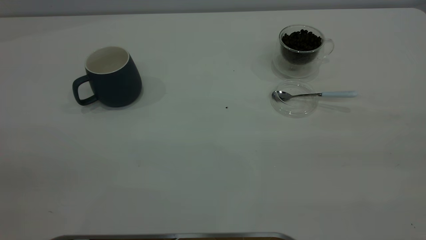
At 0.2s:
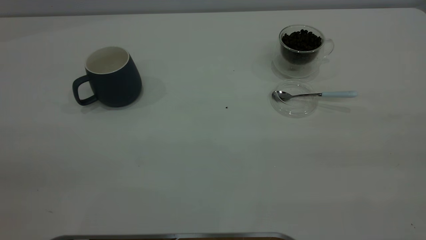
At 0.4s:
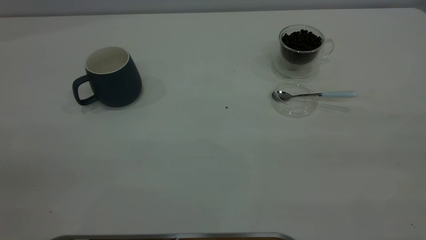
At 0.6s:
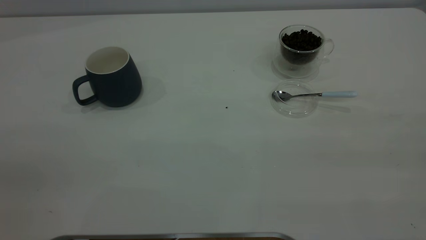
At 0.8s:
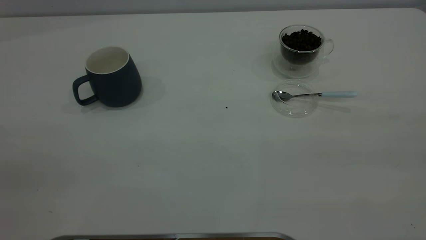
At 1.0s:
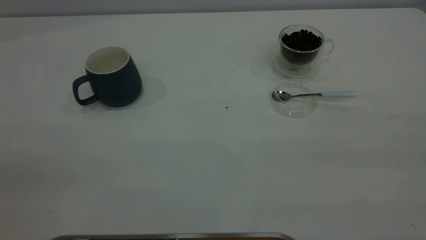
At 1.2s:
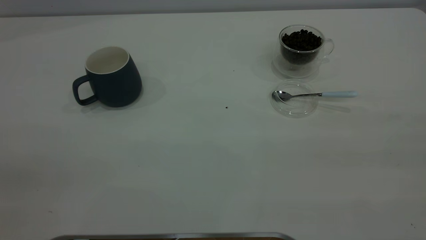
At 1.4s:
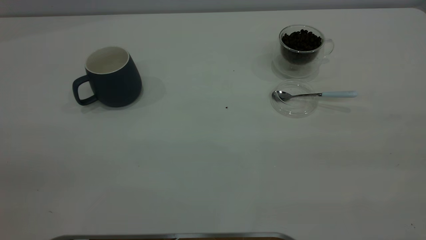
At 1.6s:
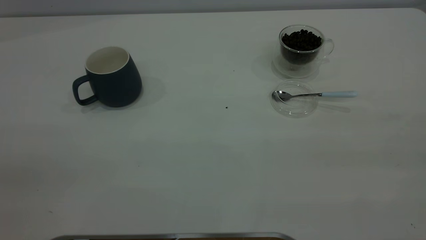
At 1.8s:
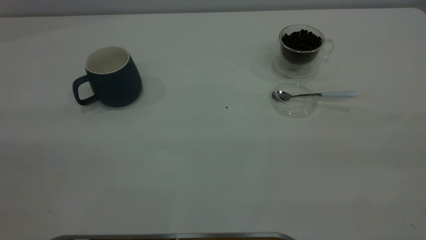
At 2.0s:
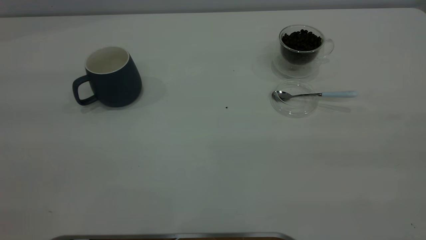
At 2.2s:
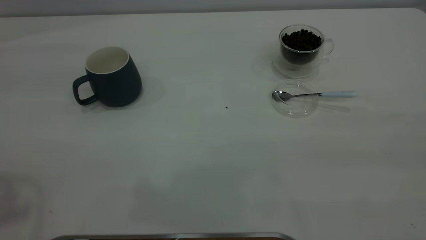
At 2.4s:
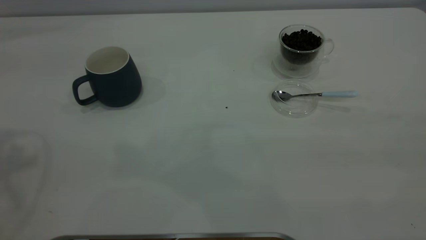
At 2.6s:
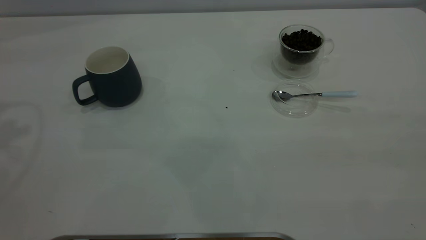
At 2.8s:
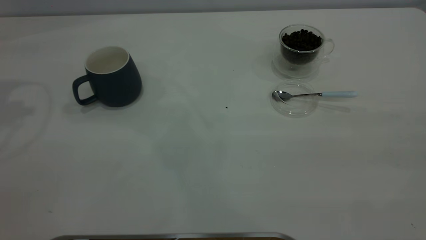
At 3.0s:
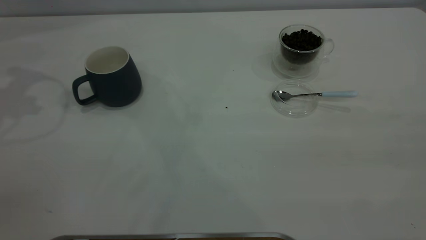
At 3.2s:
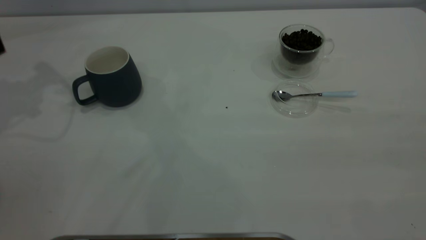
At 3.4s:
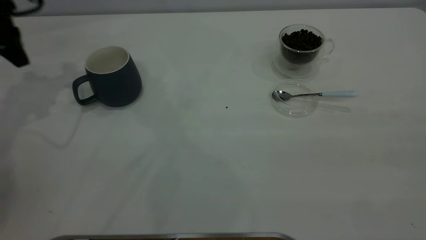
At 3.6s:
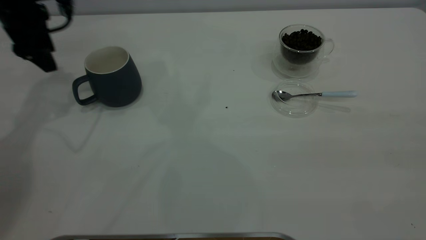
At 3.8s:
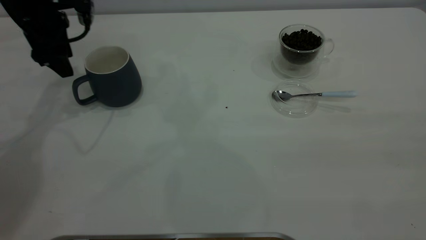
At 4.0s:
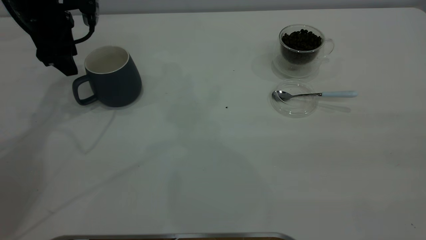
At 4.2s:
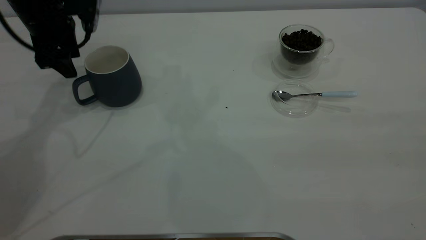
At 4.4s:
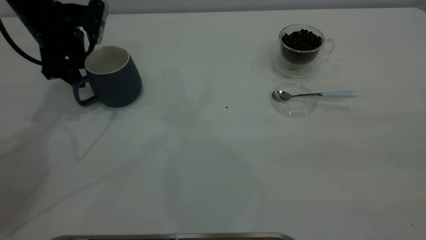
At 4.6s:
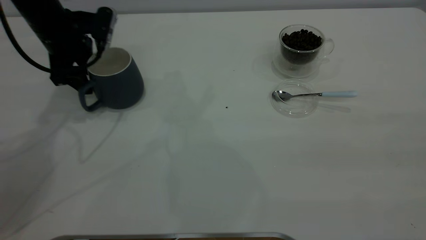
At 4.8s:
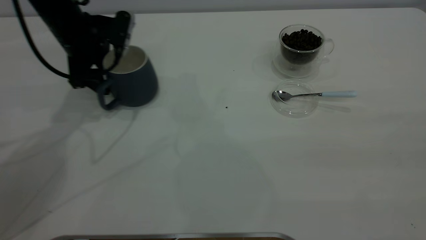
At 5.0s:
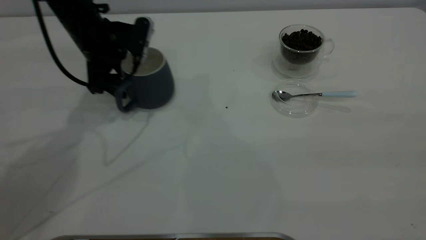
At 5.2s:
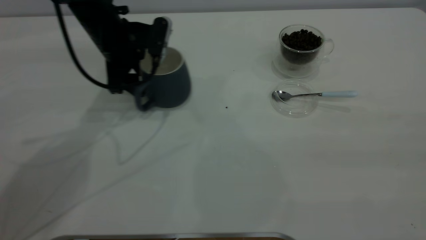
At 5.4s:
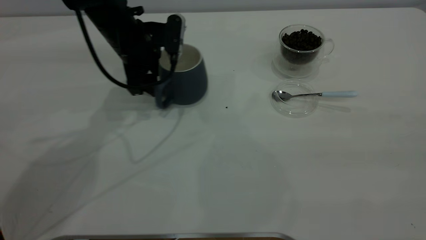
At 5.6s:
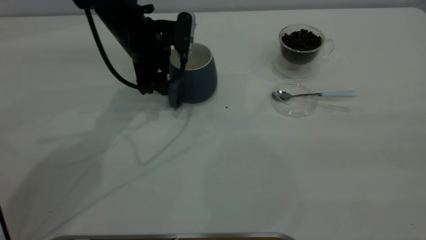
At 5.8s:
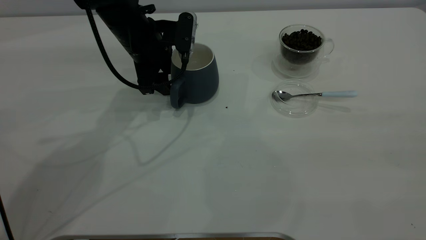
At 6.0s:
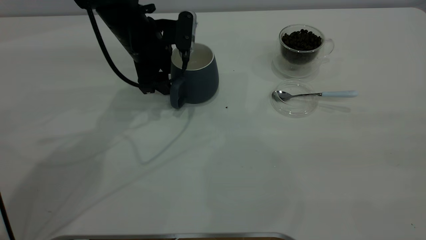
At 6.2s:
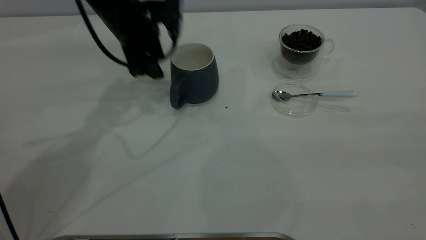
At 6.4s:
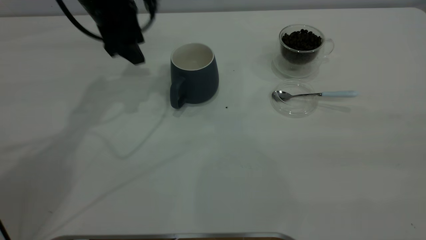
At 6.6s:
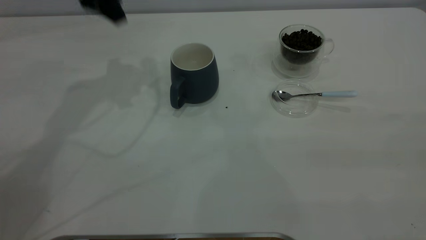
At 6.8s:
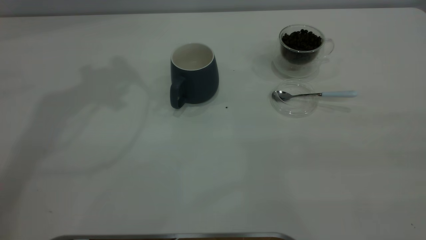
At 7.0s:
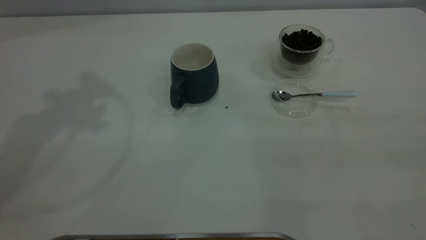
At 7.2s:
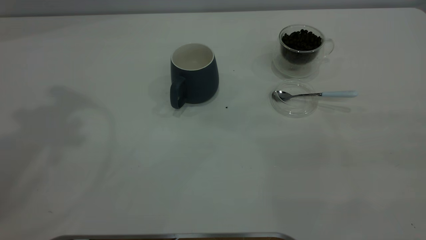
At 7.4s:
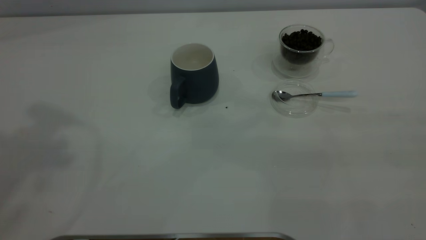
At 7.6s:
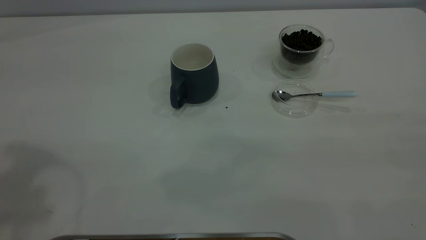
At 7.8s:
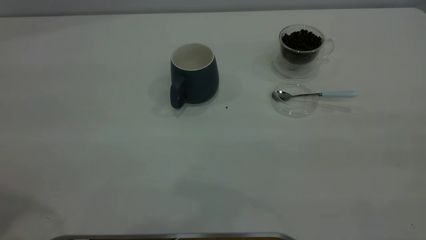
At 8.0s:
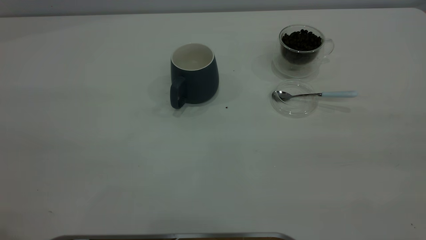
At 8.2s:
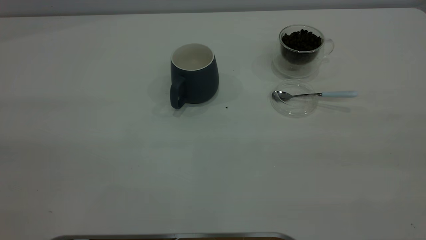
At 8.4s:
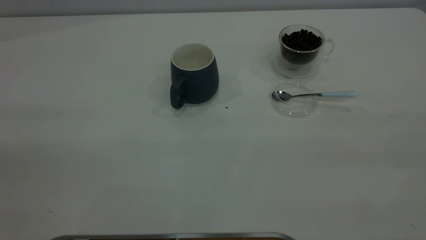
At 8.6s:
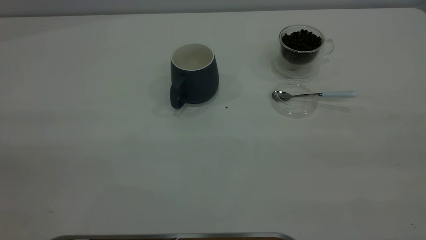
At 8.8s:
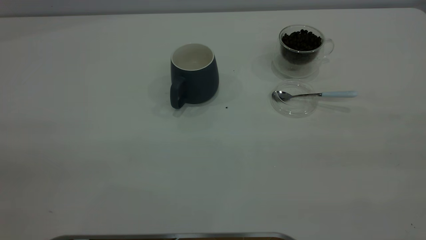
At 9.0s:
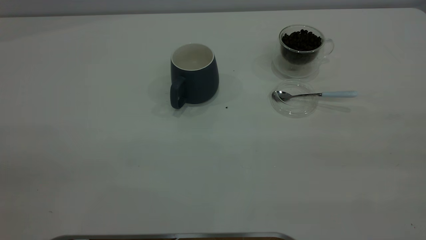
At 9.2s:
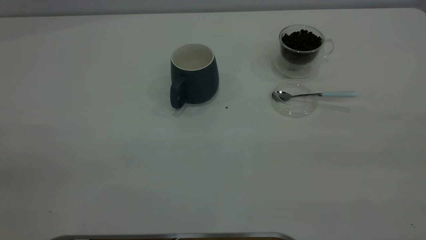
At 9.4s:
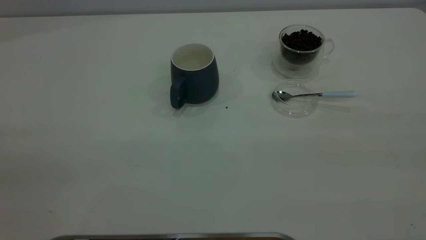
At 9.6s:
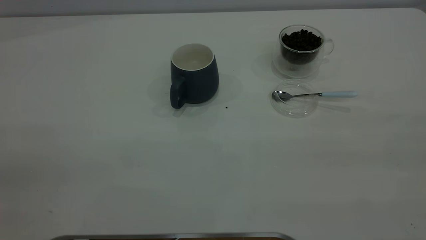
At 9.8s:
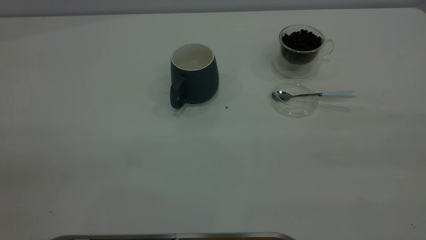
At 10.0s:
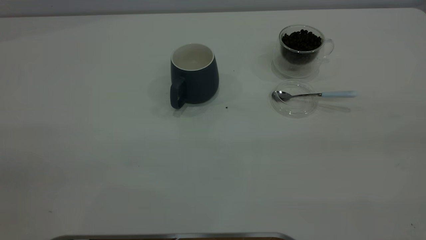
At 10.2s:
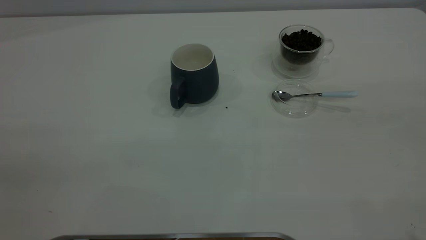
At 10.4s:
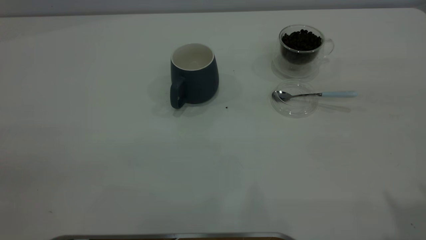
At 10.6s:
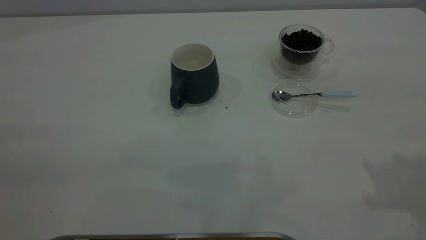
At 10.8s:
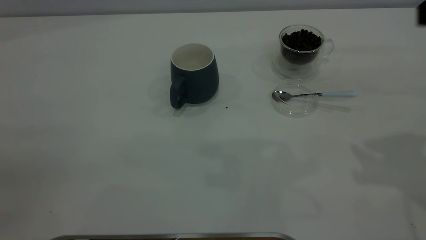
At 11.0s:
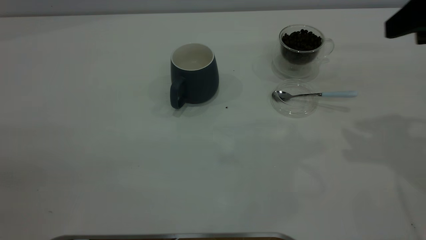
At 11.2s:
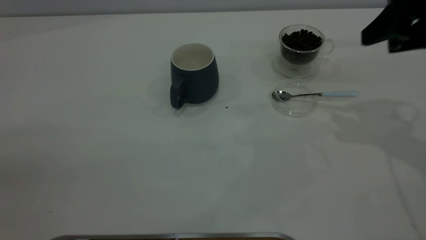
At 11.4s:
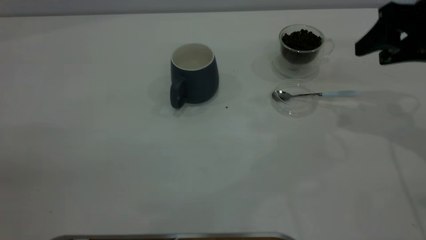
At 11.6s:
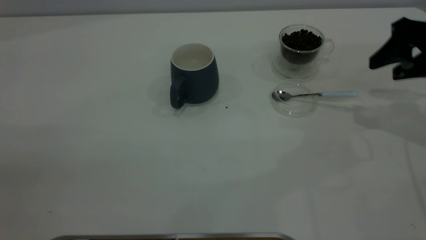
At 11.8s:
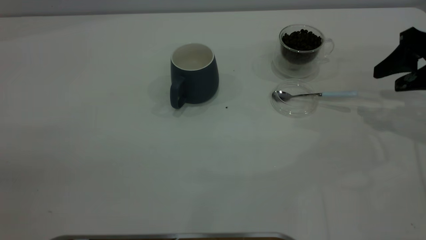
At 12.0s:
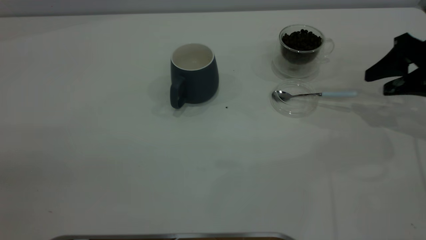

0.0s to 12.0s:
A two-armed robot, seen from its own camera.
Task of the whole recording: the left gripper place the grey cup in the center of the table, the right gripper take the blue spoon from the cup lid and scoop out the coffee beans from the coffee cup and put them into the grey cup, the right gripper put the spoon back into the cup lid.
Step, 0.0s to 6.2s: Move the cup to the center of view.
0.0s to 1.6s: Neither gripper changes place.
3.0s to 4.4s: The left gripper heads downward and to the right, covering approximately 15 cm.
4.4s to 6.0s: The left gripper moves to the right, some 15 cm.
6.0s to 7.6s: The left gripper heads upward, backward and to the left, covering about 40 cm.
10.4s to 12.0s: The right gripper goes some 35 cm downward and forward.

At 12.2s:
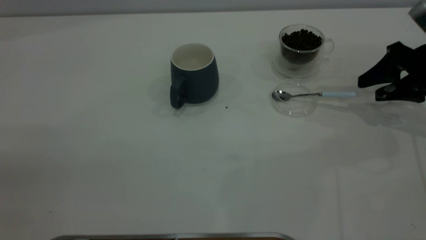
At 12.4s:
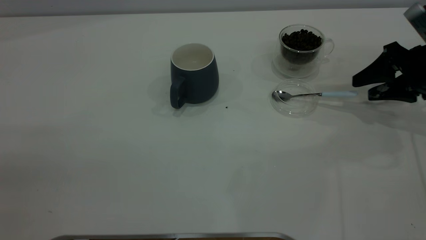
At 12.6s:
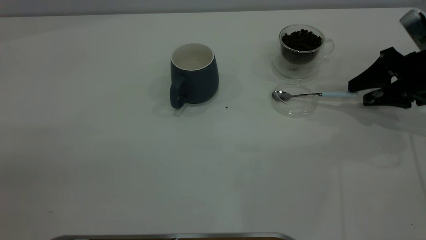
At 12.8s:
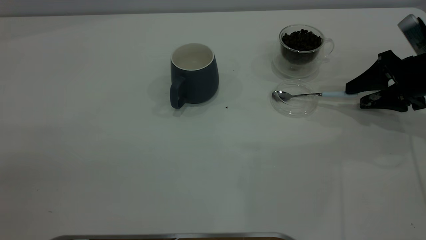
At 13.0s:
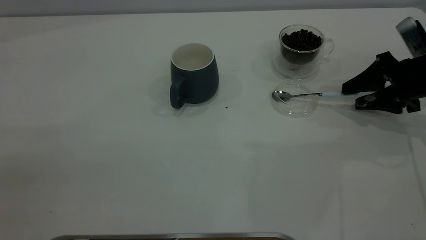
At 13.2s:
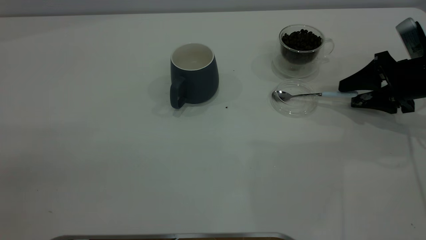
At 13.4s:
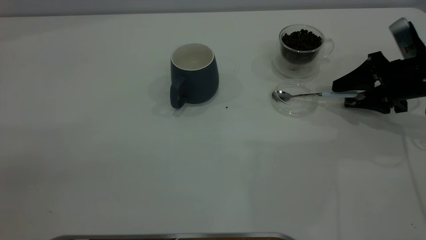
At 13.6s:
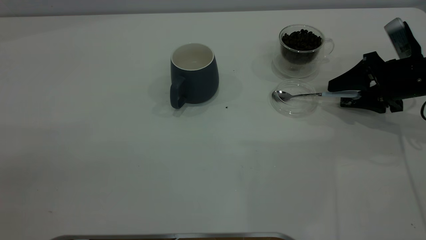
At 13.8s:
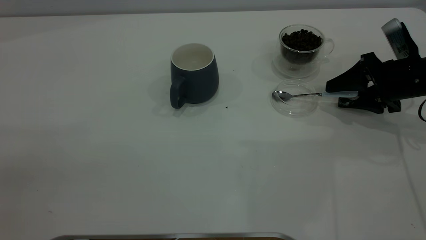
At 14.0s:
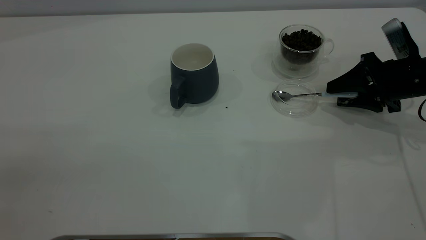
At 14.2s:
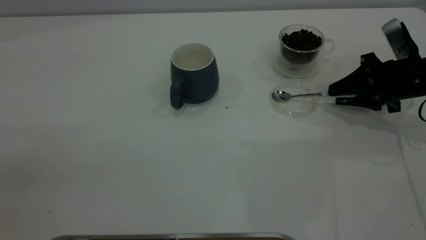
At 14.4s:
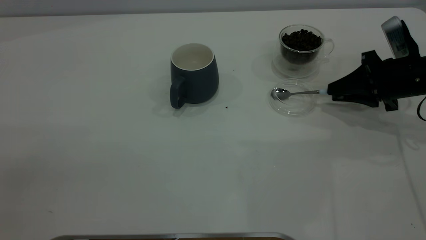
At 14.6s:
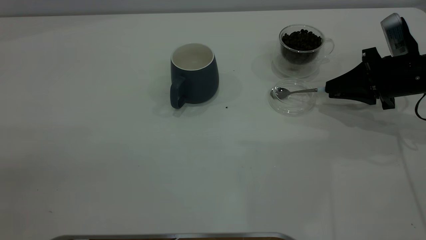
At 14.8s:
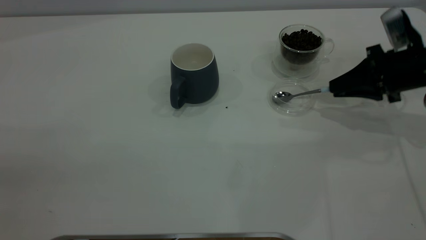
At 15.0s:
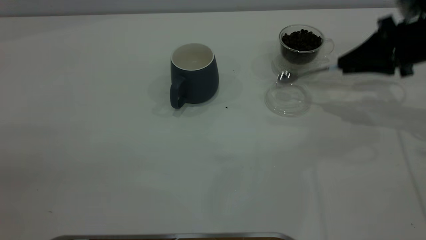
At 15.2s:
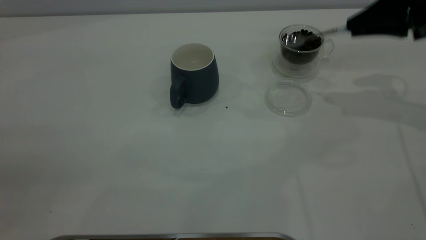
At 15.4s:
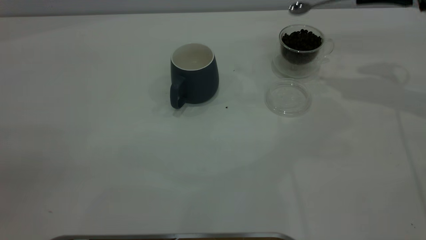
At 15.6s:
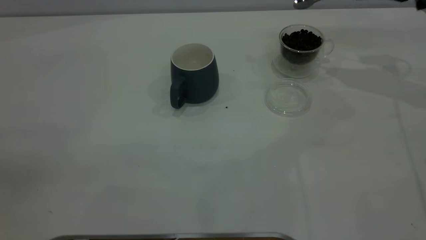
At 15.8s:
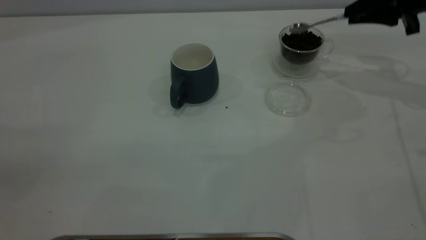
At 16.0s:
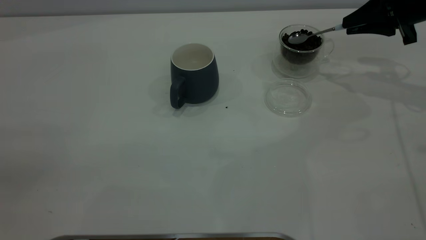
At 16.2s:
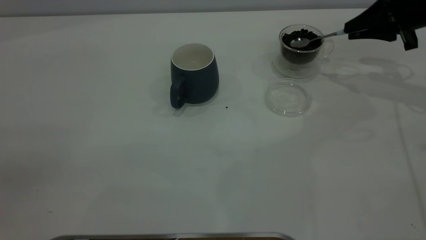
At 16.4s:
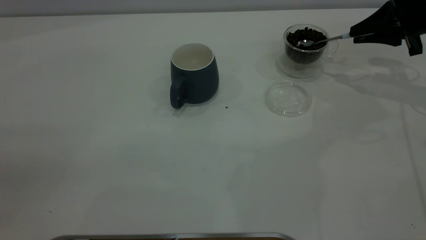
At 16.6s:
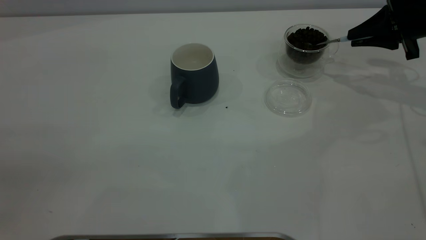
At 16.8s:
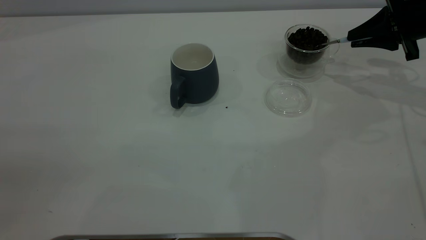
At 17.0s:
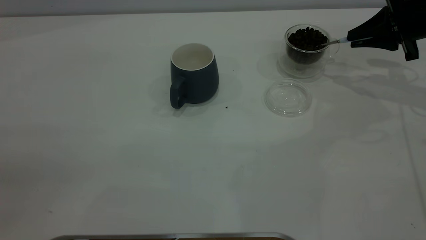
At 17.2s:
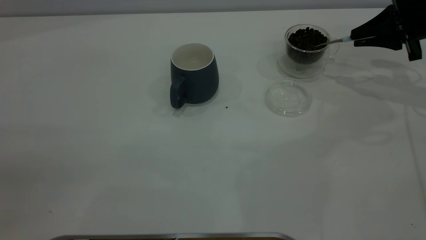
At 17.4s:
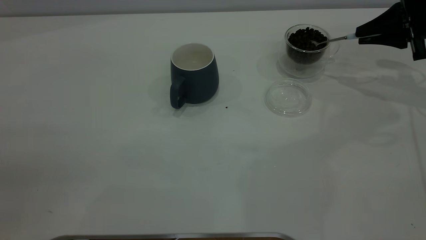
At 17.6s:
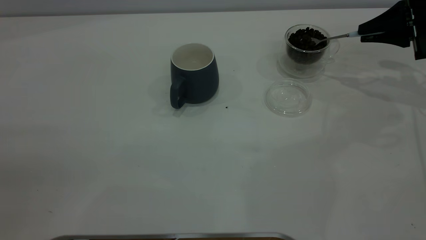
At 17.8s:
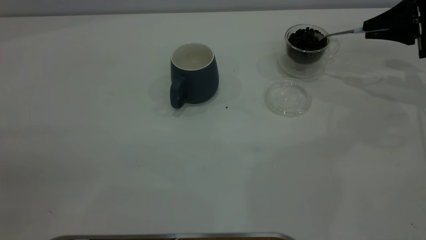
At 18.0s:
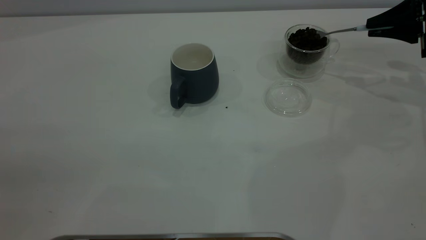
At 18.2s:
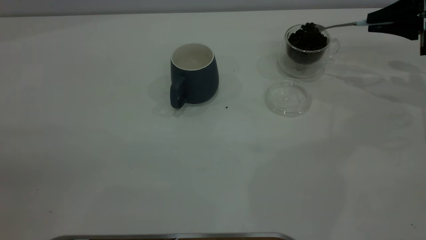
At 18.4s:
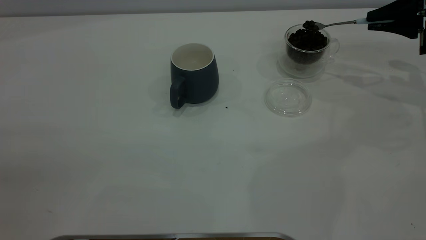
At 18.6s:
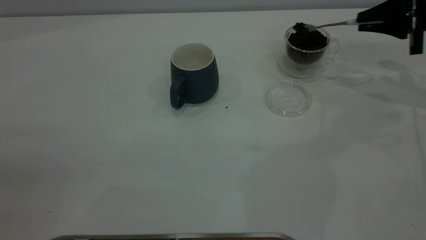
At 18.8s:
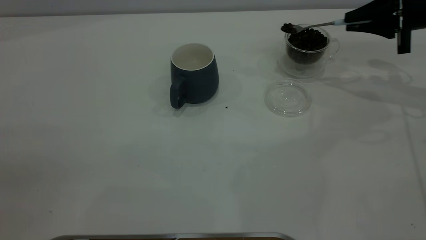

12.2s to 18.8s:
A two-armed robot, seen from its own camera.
Task of the whole recording: the left gripper place the grey cup in the center of the table, the right gripper take the blue spoon from the cup lid and scoop out the coffee beans from the coffee cup and put them into the grey cup, the right gripper put the spoon back into the cup lid.
Step, 12.2s to 15.0s: Pick up the spoon.
12.2s to 13.8s: The right gripper ends up approximately 5 cm from where it was.
13.8s to 15.4s: The right gripper moves upward, about 15 cm, and closes its fingers.
15.4s to 17.2s: The right gripper shifts some 10 cm downward.
17.2s to 18.8s: The grippers move only a little.
